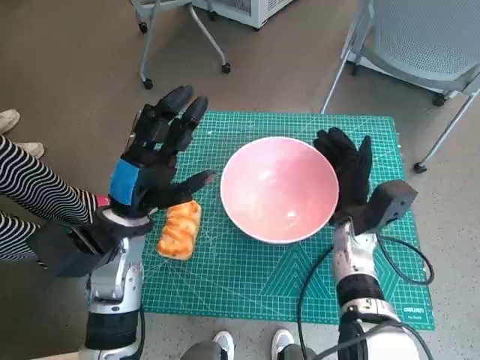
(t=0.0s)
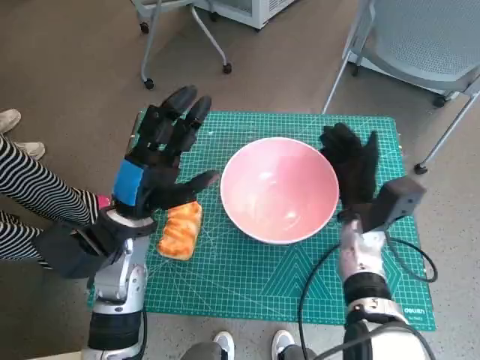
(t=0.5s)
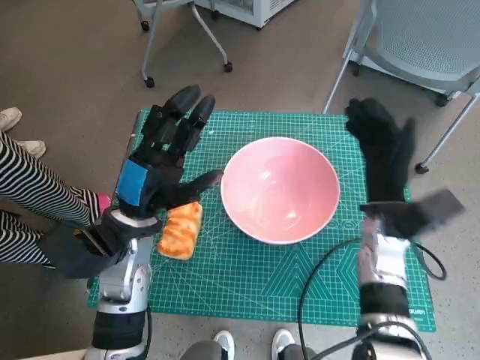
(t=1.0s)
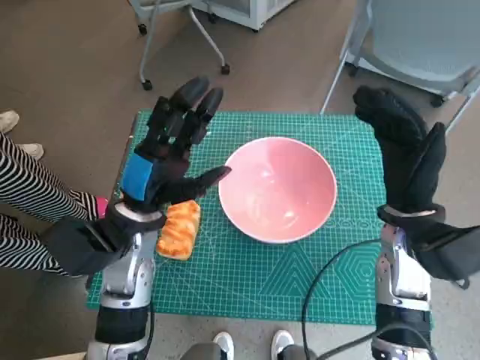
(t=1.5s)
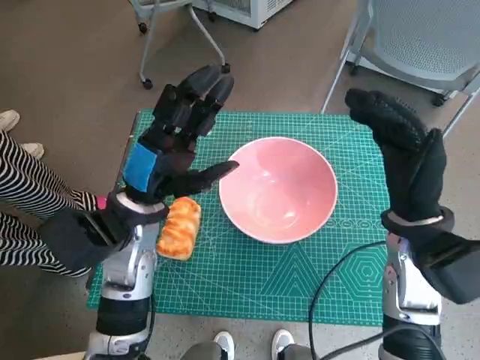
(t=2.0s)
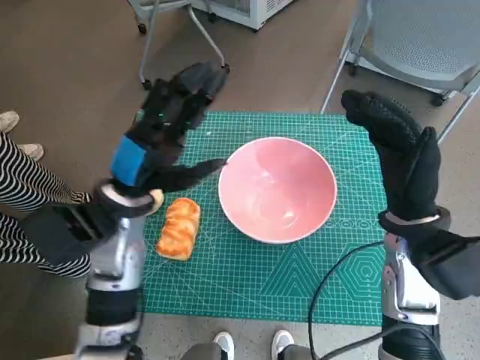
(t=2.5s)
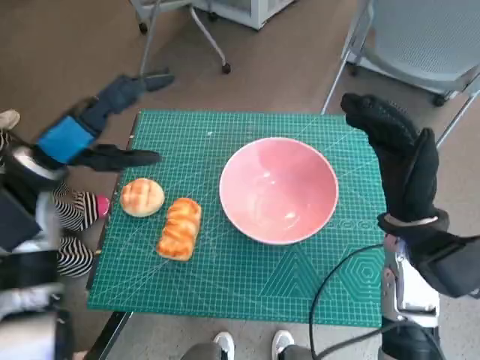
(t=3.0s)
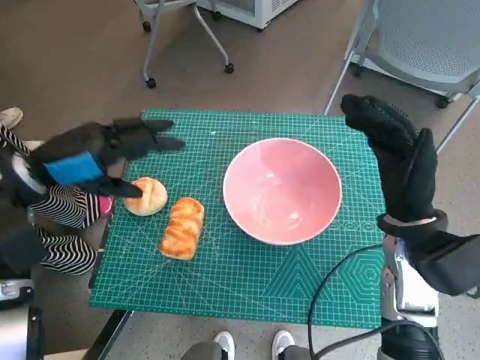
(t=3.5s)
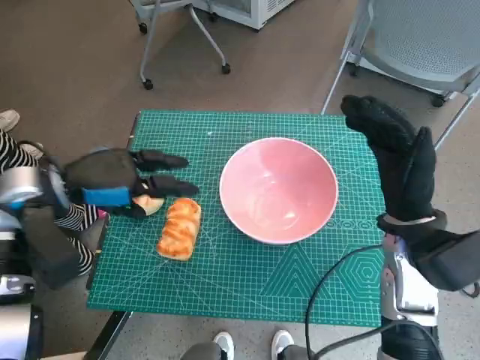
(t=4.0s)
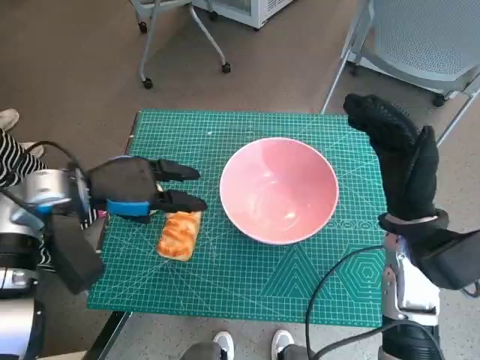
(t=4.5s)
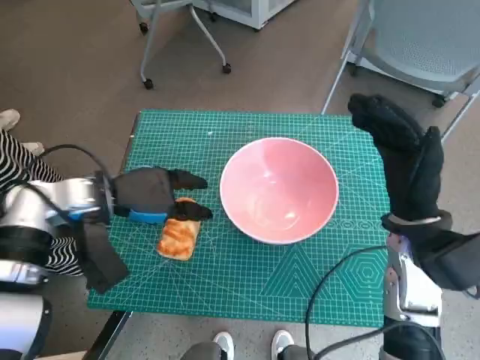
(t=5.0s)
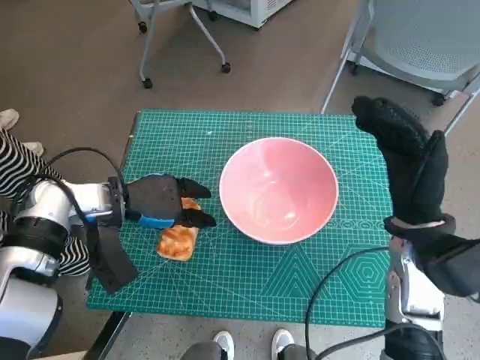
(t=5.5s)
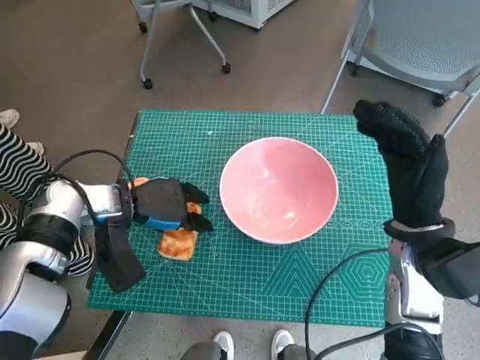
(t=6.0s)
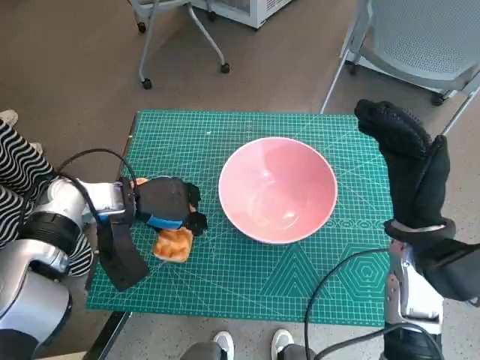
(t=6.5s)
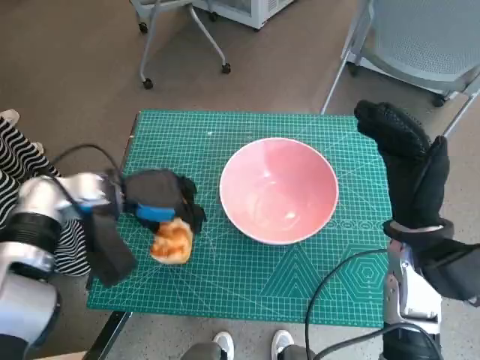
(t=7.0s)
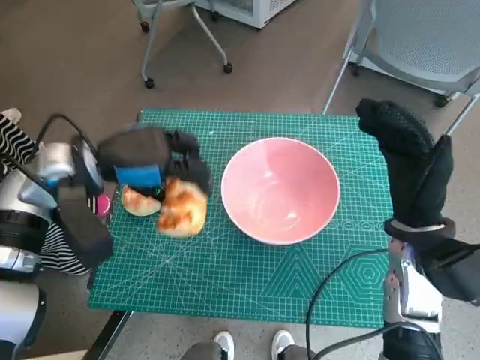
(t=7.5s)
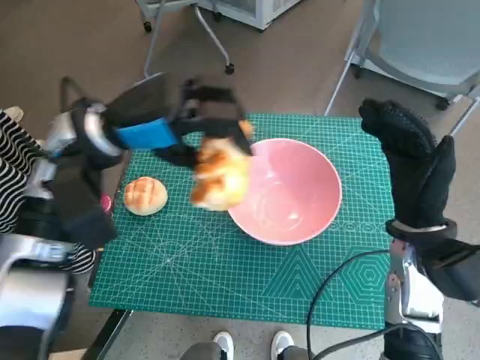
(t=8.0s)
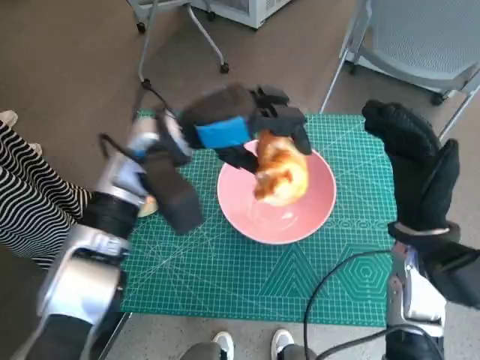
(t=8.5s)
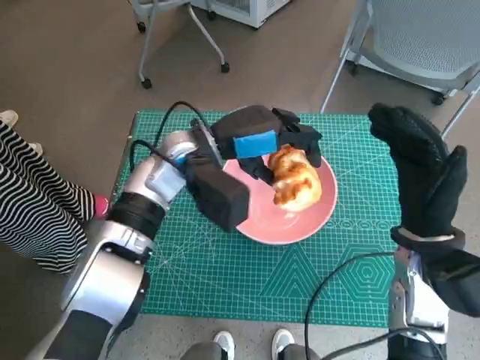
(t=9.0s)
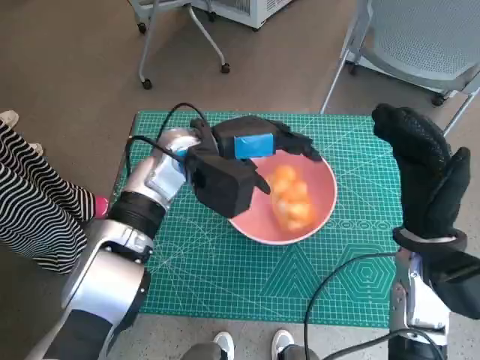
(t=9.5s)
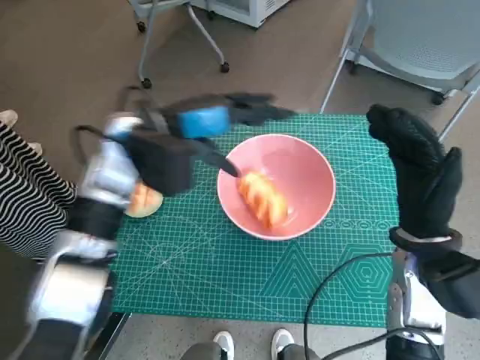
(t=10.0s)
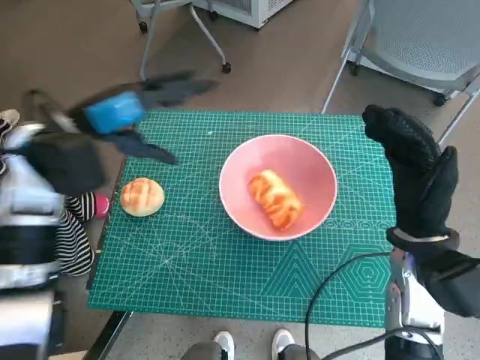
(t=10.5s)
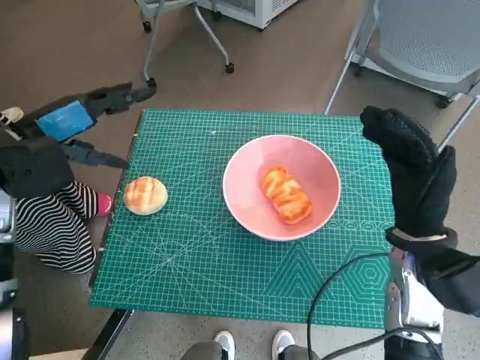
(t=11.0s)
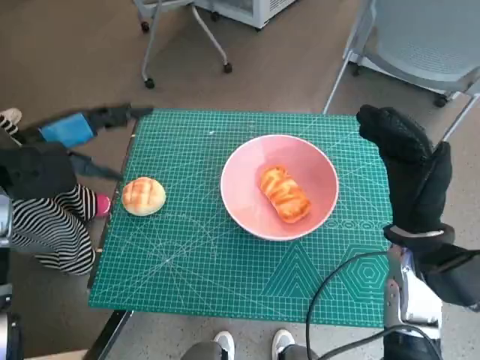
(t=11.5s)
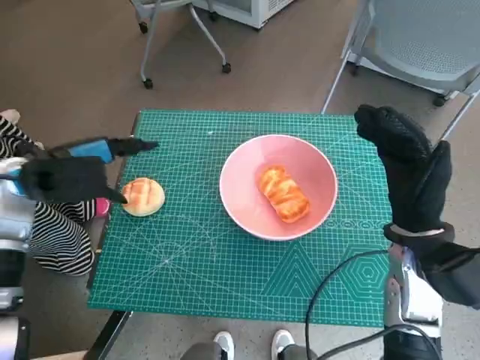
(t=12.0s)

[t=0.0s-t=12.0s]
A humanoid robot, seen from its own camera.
Task of the whole recording: Push the bowl into the center of the table and put the bread into the bowl.
Step, t=1.0s to t=6.5s: Grasp the long bread with left hand.
Step, t=7.0s to t=9.5s: Place the long bread in pink bowl with left hand.
t=0.0s to t=2.0s: The right hand is displaced upward and backward by approximately 10 cm.
t=2.0s to t=4.0s: The left hand goes roughly 10 cm to the left.
t=4.0s to t=6.0s: The left hand is displaced downward and to the right by approximately 10 cm.
t=6.0s to t=8.0s: The left hand moves upward, approximately 15 cm.
t=10.0s to t=12.0s: The left hand heads to the left, covering some 15 cm.

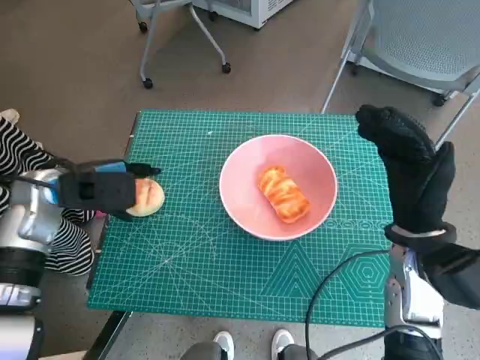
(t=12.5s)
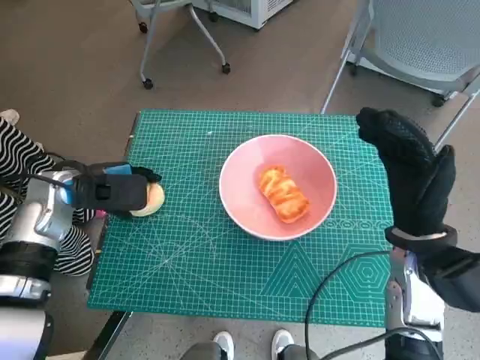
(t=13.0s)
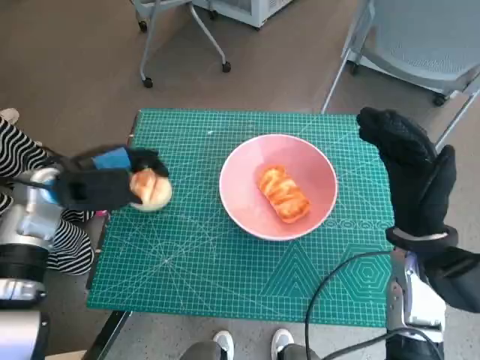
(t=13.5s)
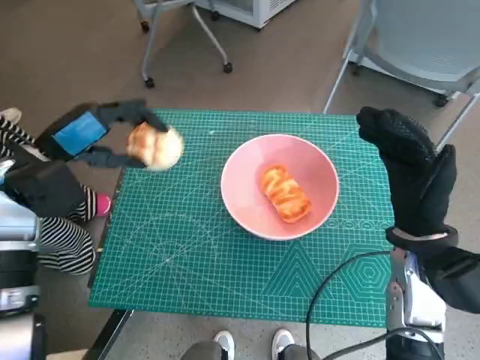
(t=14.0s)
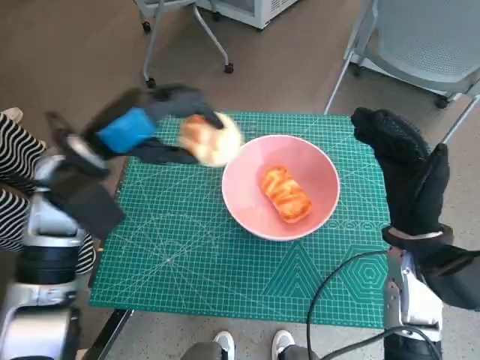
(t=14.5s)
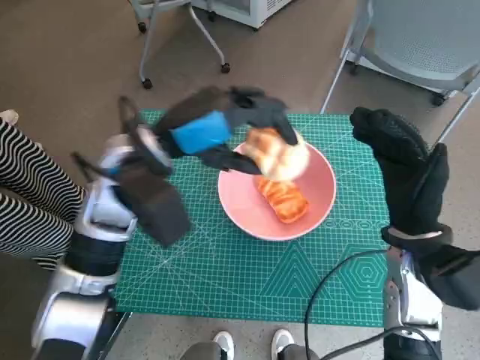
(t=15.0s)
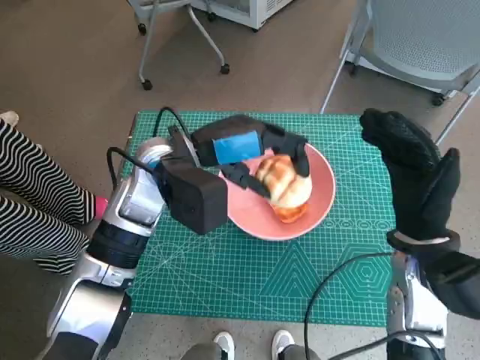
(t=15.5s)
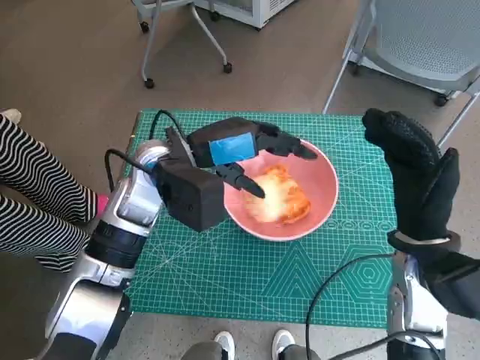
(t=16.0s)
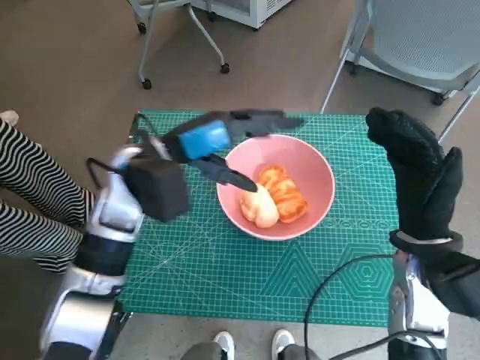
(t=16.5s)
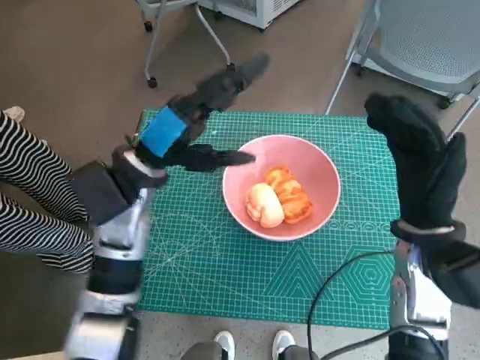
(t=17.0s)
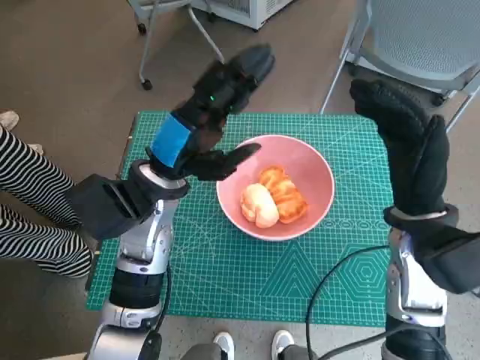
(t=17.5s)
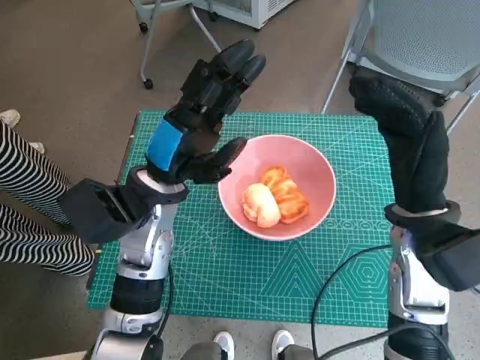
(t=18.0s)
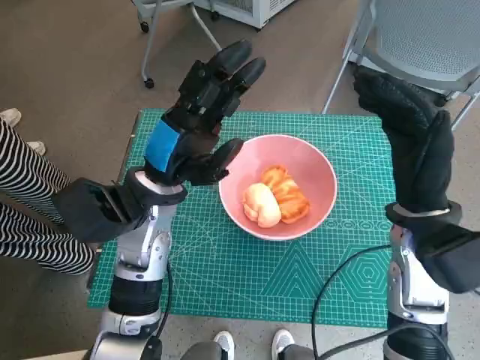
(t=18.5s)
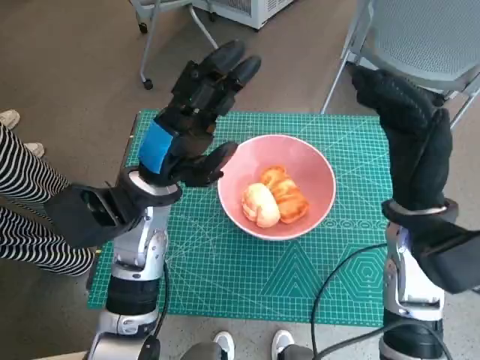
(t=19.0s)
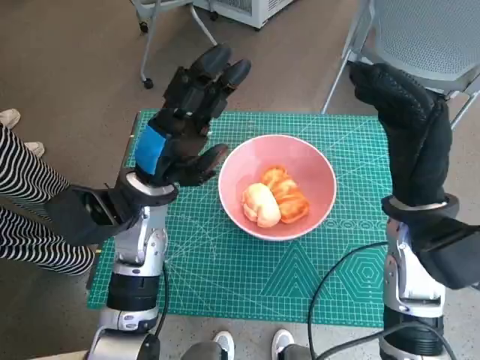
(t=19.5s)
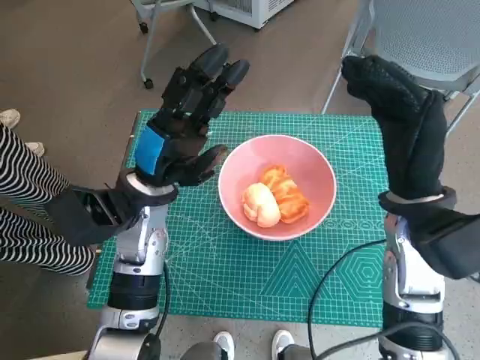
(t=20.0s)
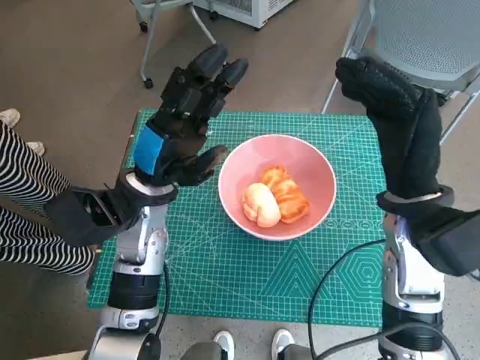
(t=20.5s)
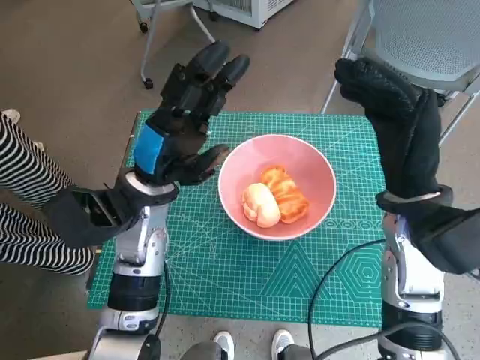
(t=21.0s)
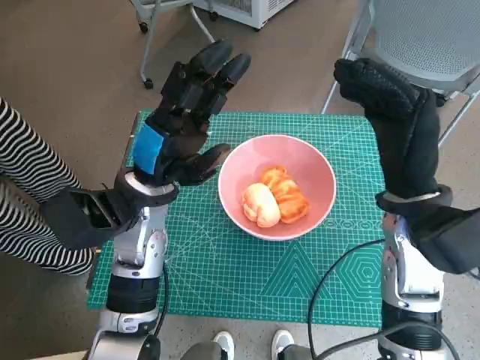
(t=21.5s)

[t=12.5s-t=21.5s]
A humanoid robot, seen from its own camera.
Task of the whole recording: Push the bowl into the center of the table and put the bread into the bowl.
Step, t=13.5s to t=16.0s: Place the round bread in pink bowl with left hand.
t=12.5s to t=14.5s: The left hand travels to the right and upward by about 10 cm.
t=14.5s to t=17.0s: The left hand goes approximately 5 cm to the right.
t=19.5s to t=21.5s: The hands stay close to where they were, moving slightly.
